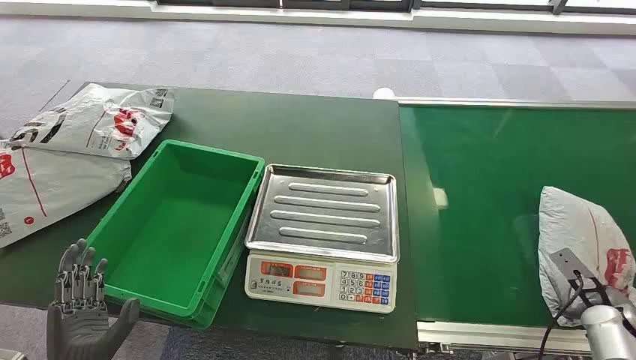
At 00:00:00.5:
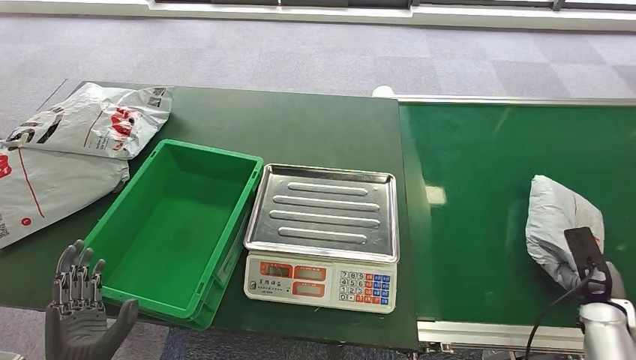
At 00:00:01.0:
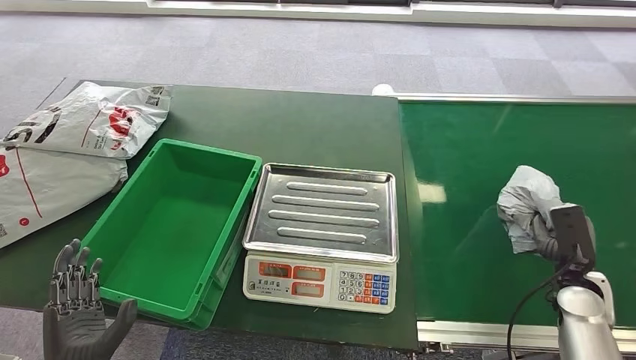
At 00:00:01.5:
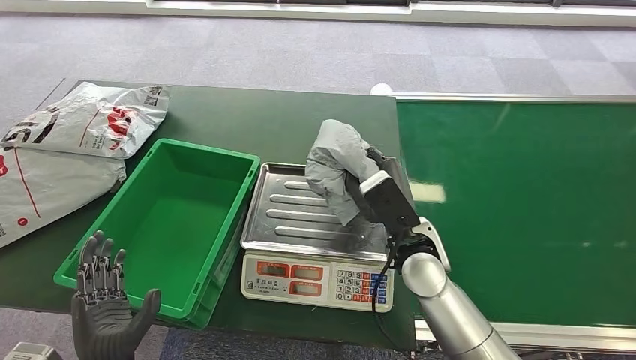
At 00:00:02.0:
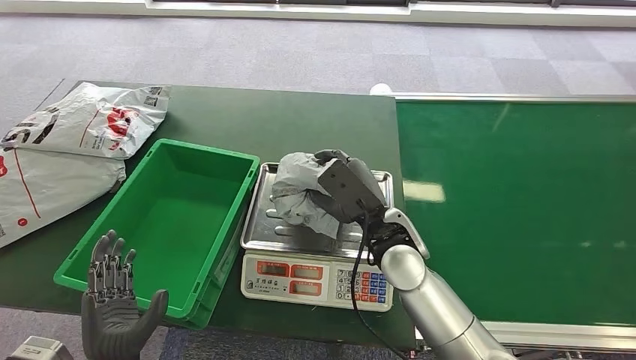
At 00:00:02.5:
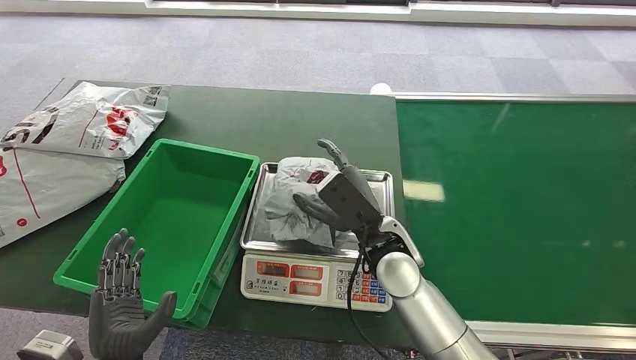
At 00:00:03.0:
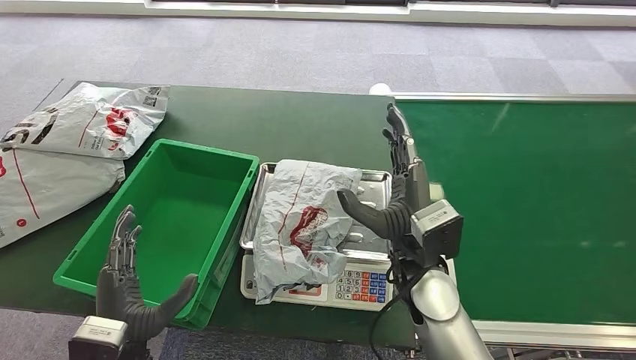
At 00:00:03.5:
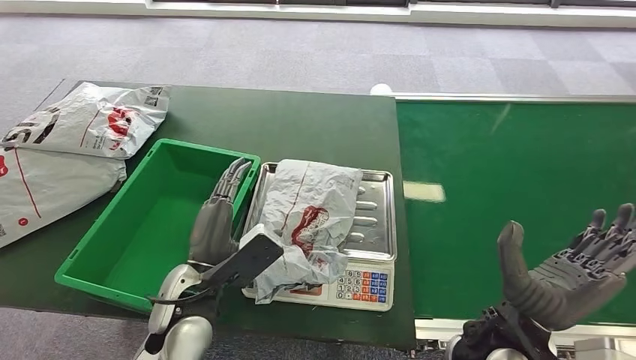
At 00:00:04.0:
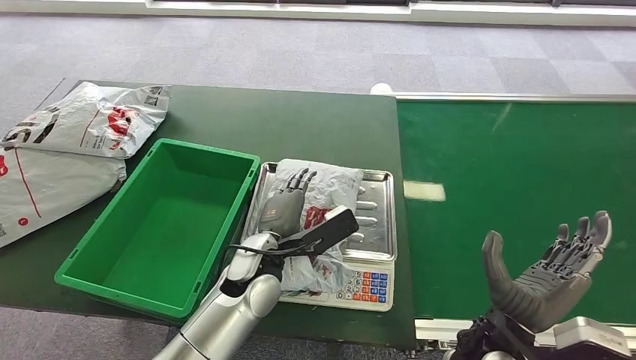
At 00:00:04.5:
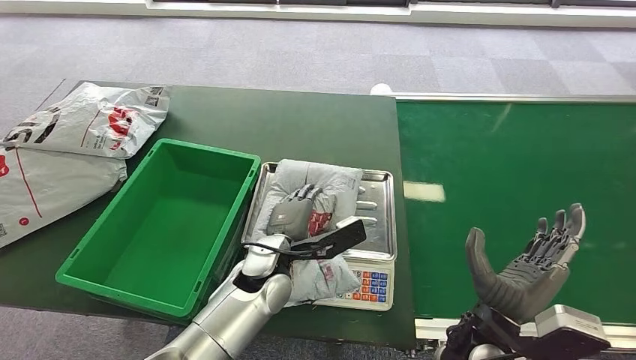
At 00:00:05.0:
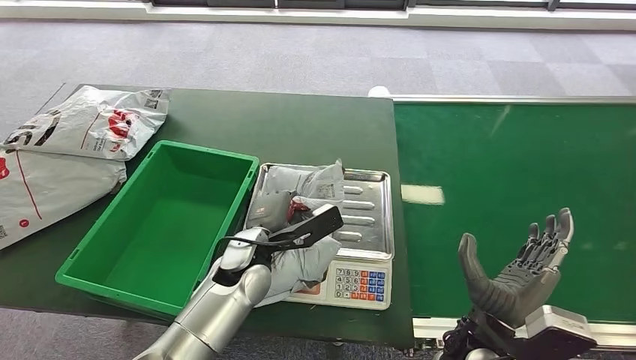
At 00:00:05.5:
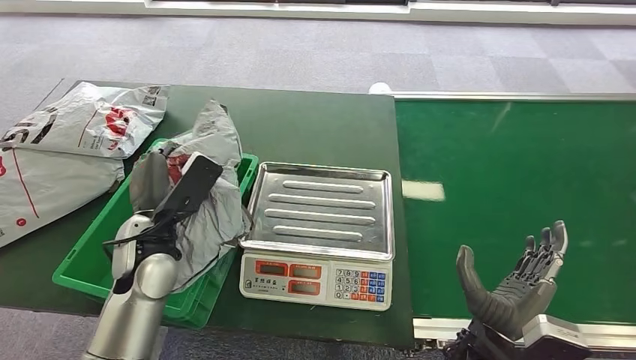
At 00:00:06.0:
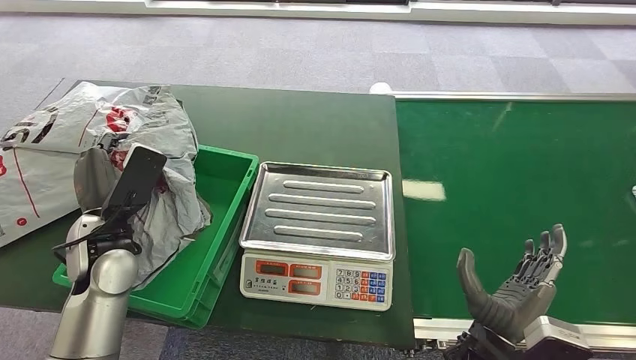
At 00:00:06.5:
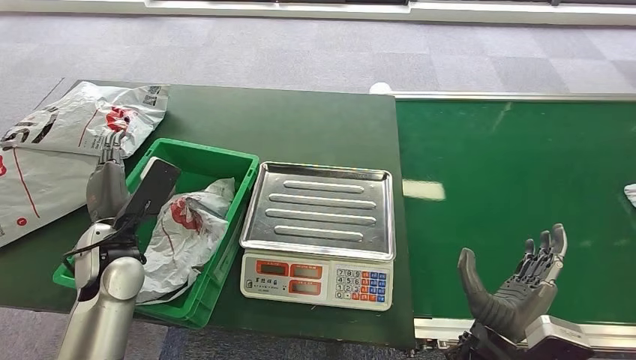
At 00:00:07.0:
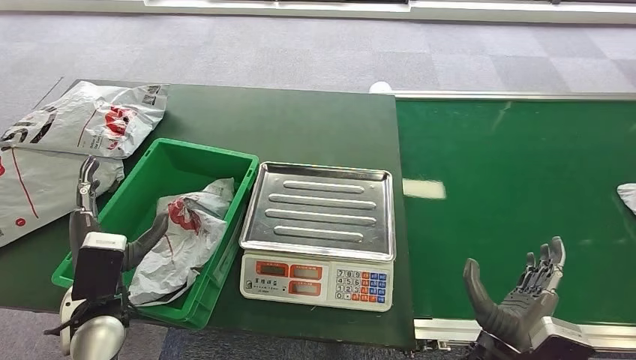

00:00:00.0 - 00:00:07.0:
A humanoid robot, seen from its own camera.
Step, 00:00:00.0 - 00:00:01.0: Pick up the package from the conveyor belt.
Step, 00:00:01.5 - 00:00:02.5: Place the package onto the inbound machine.
Step, 00:00:05.0 - 00:00:05.5: Pick up the package from the inbound machine.
Step, 00:00:06.0 - 00:00:07.0: Place the package into the parcel locker.
00:00:02.0 - 00:00:03.5: The right hand shifts about 15 cm backward and to the right. Meanwhile the left hand is displaced forward, to the right and upward by about 15 cm.

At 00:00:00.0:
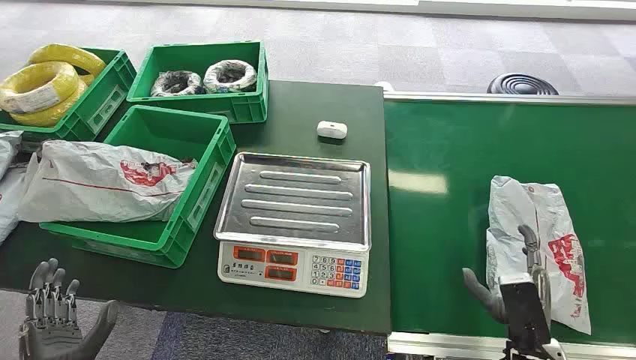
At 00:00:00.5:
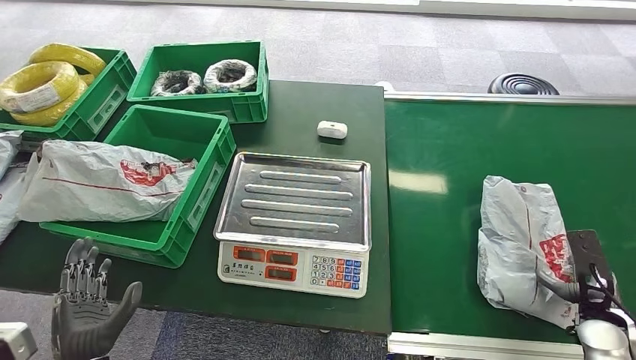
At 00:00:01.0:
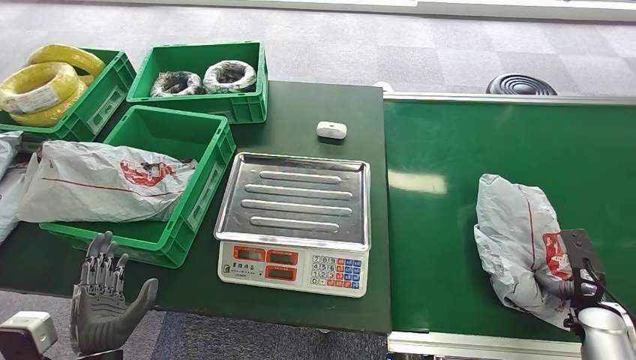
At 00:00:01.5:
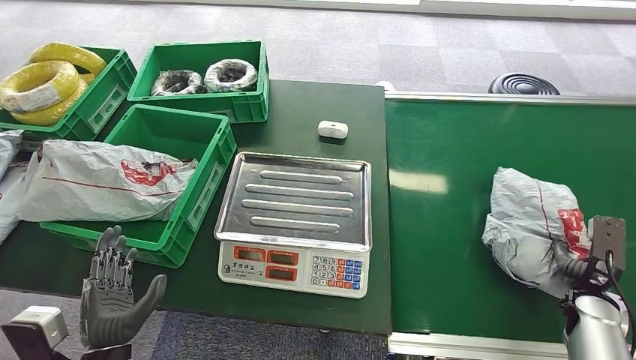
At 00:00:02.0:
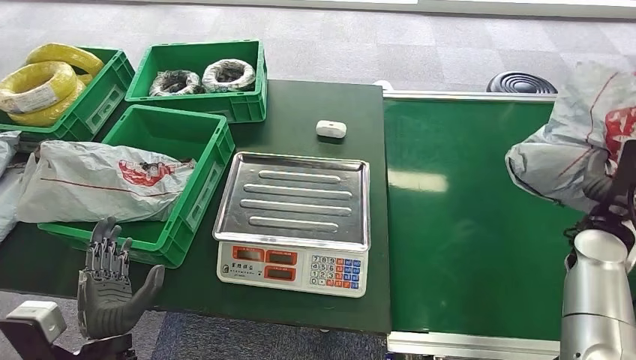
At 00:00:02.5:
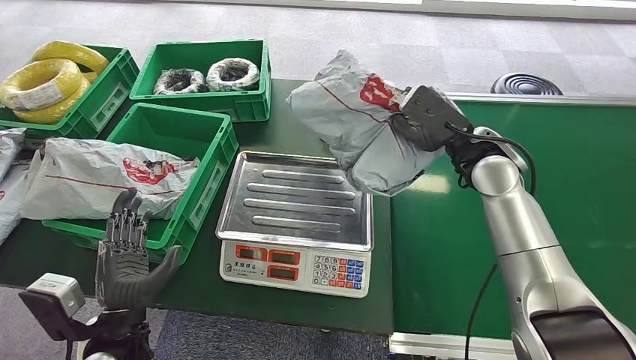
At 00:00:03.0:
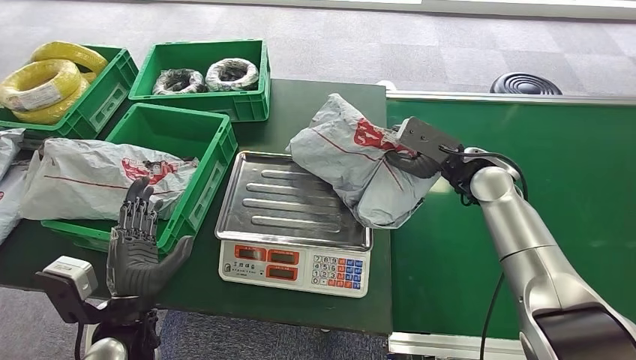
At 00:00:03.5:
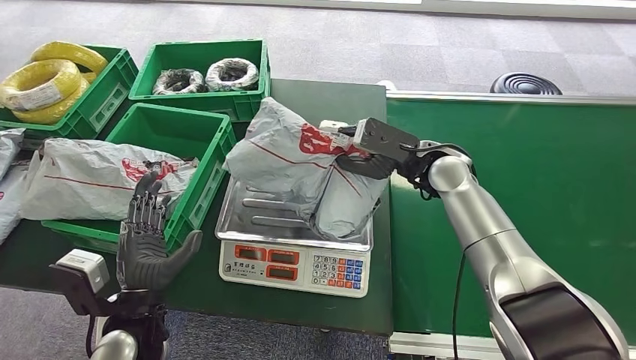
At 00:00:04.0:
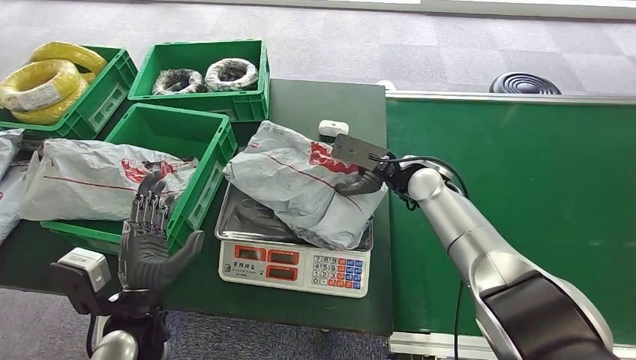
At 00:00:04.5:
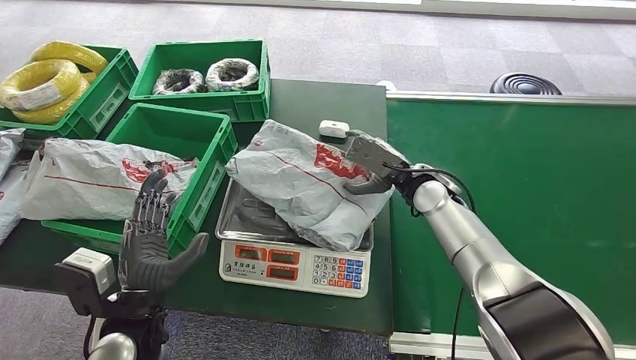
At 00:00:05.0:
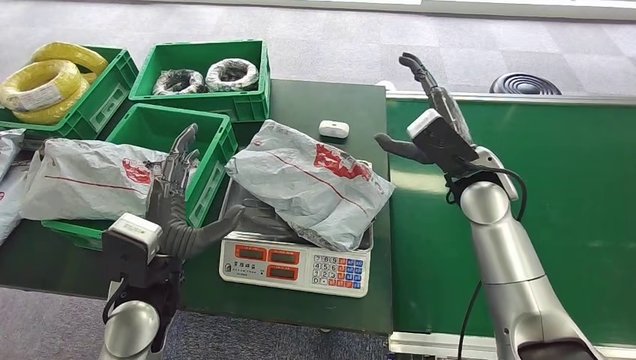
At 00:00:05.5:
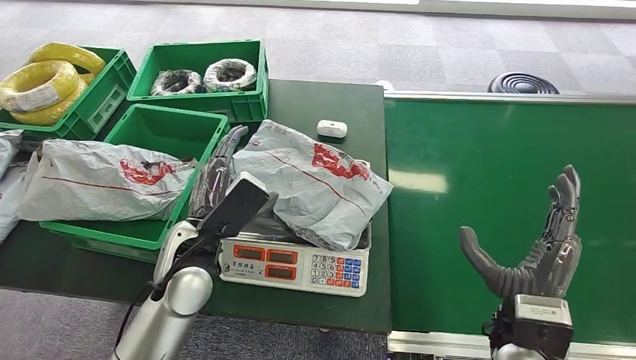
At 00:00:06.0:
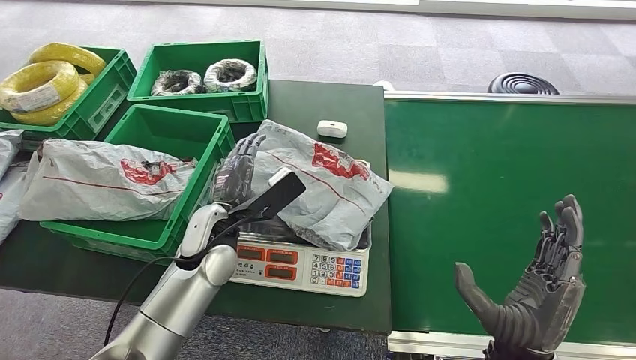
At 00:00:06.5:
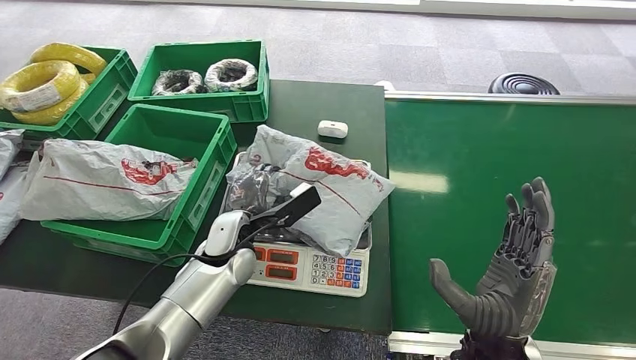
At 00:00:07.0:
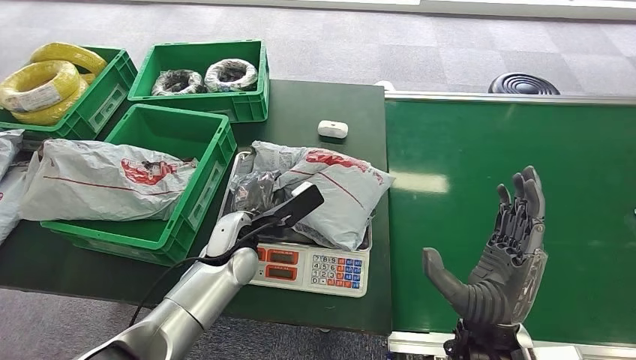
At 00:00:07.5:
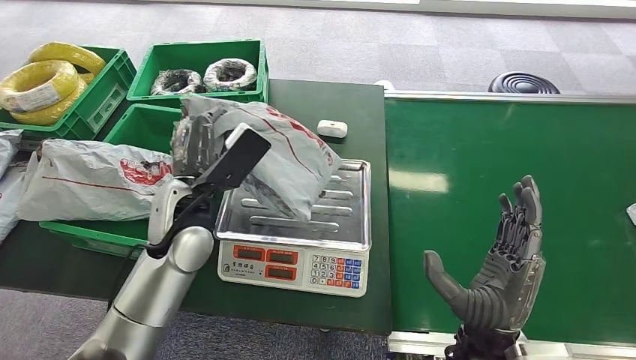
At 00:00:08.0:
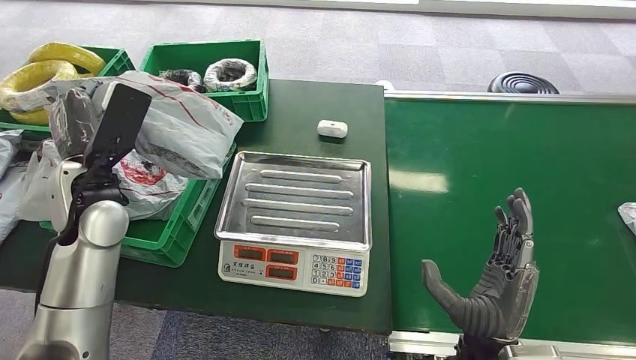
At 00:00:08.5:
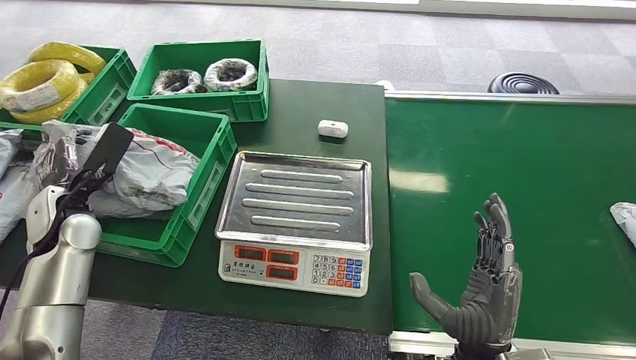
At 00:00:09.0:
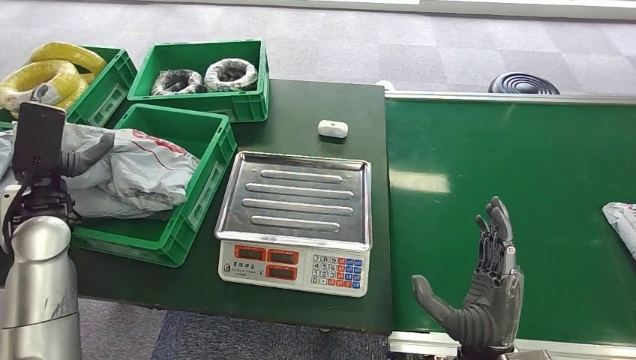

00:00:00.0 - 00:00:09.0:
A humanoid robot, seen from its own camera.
Step, 00:00:00.0 - 00:00:02.0: Pick up the package from the conveyor belt.
Step, 00:00:02.5 - 00:00:04.5: Place the package onto the inbound machine.
Step, 00:00:05.5 - 00:00:07.5: Pick up the package from the inbound machine.
Step, 00:00:08.0 - 00:00:09.0: Place the package into the parcel locker.
